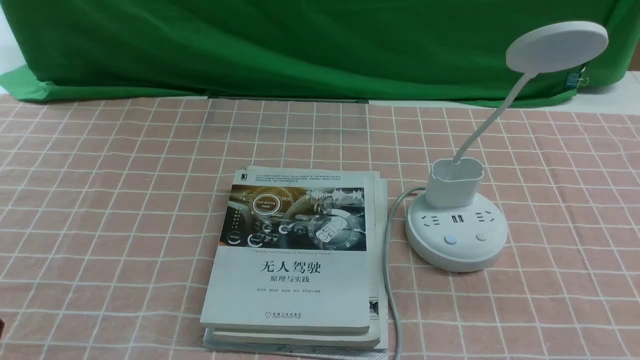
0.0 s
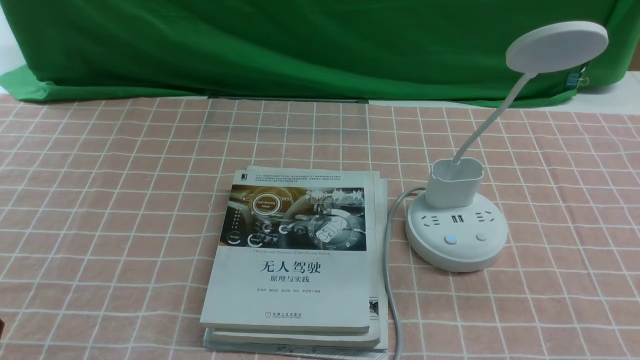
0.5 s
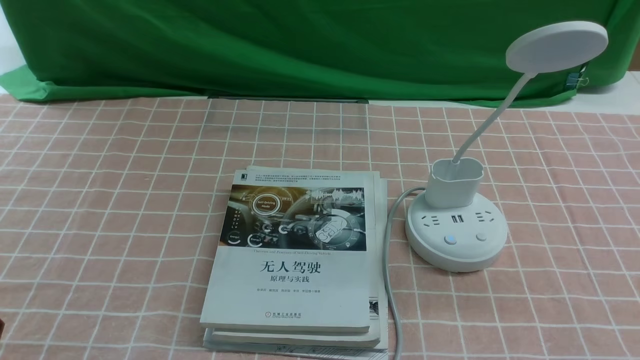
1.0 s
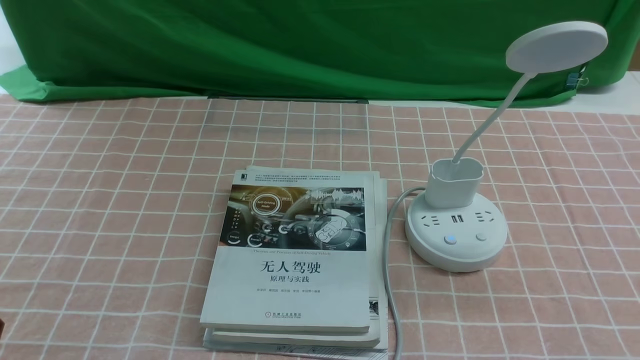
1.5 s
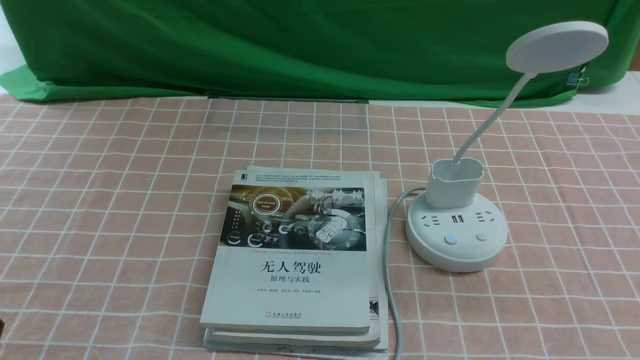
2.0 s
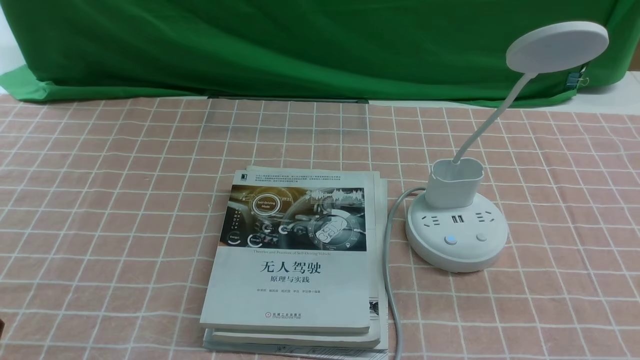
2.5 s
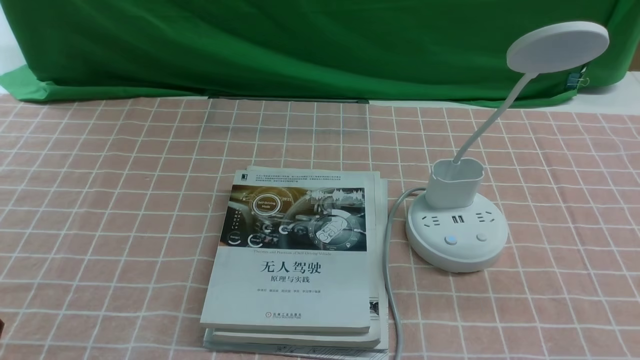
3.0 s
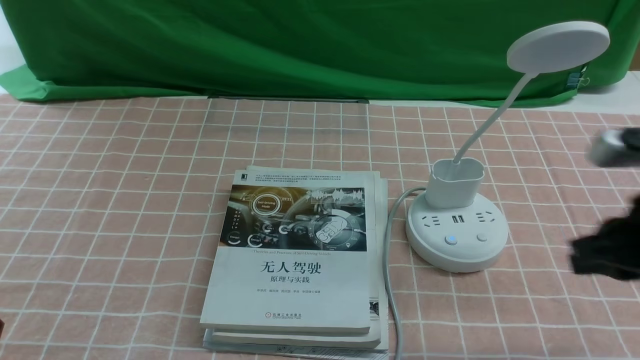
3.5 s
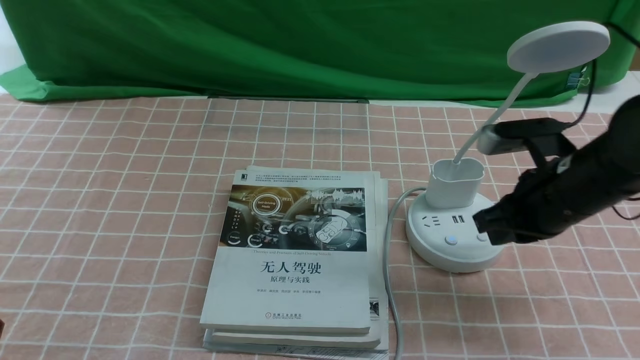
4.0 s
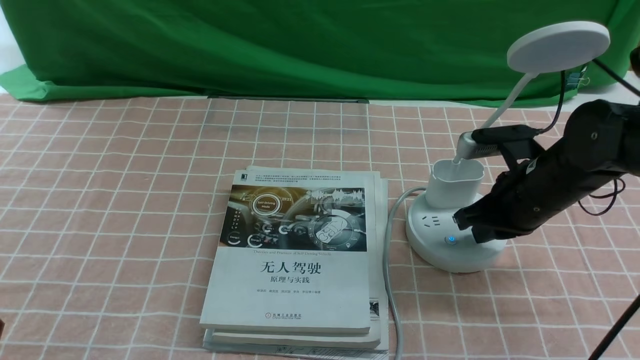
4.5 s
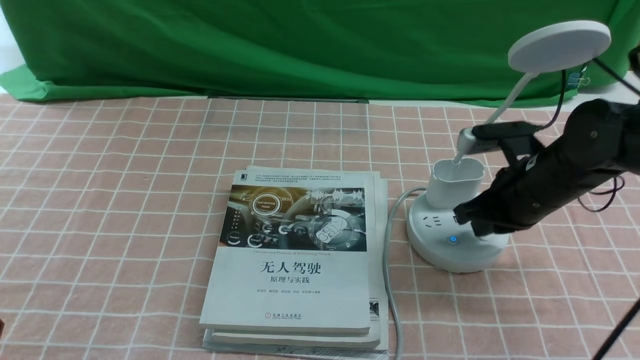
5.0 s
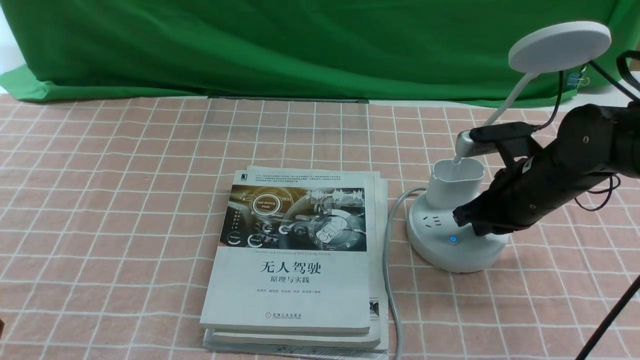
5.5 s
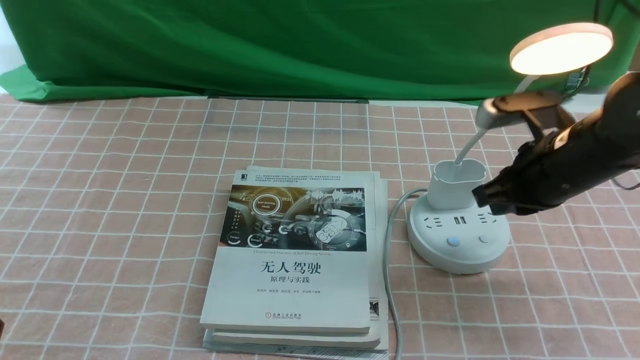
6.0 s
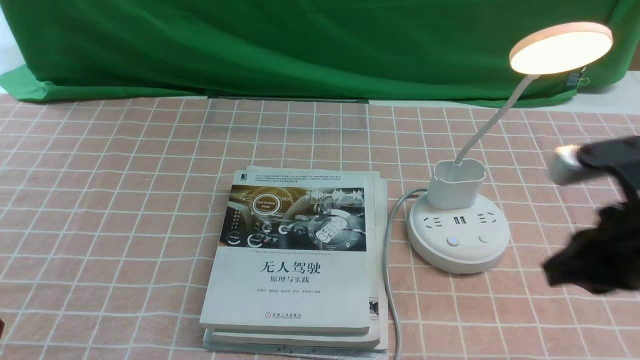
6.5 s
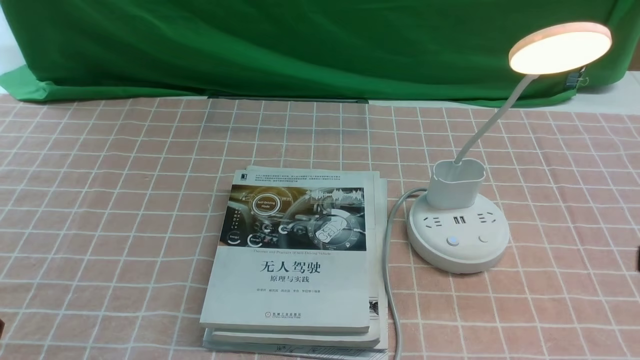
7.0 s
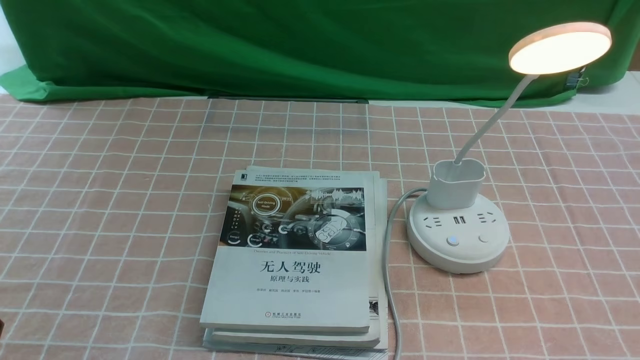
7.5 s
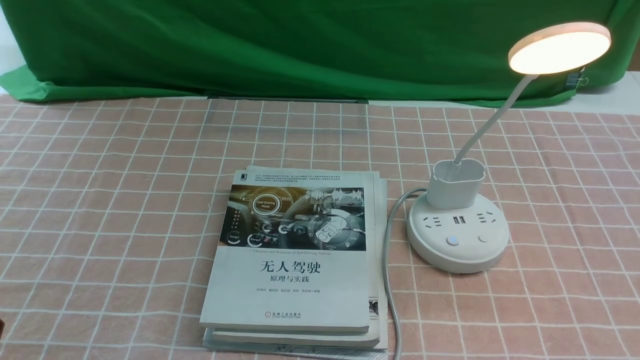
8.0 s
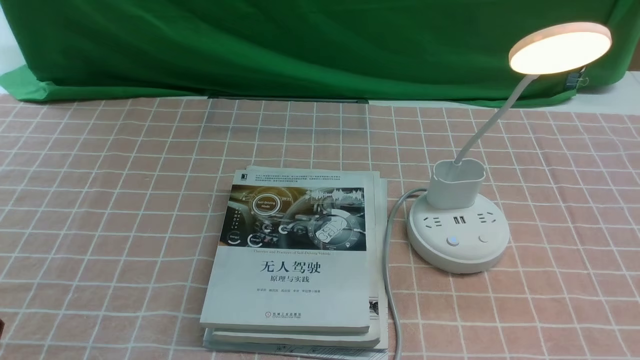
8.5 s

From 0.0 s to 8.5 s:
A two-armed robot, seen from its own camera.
Step, from 0.0 s to 5.5 s: use the right arm to press the button switch on the lamp holder.
From 2.0 s to 4.0 s: The right gripper travels forward by approximately 25 cm, and closes up.
From 4.0 s to 6.5 s: The right gripper goes about 10 cm backward and upward.
From 6.5 s to 8.5 s: The right gripper heads backward, downward and to the right, covering approximately 20 cm.
